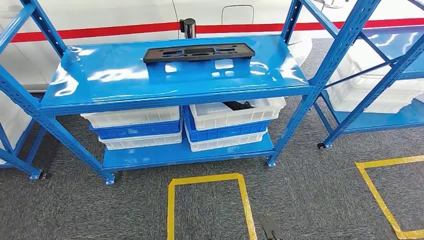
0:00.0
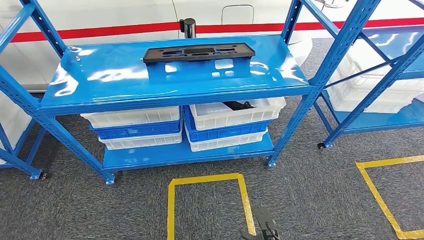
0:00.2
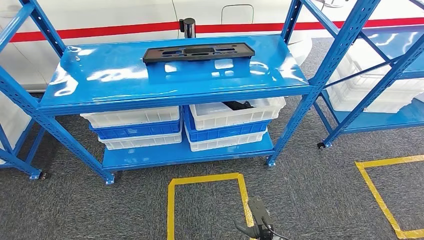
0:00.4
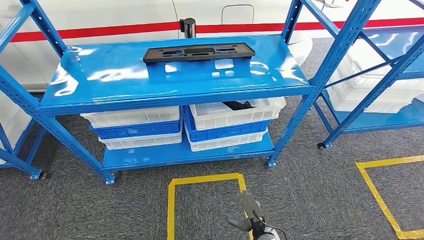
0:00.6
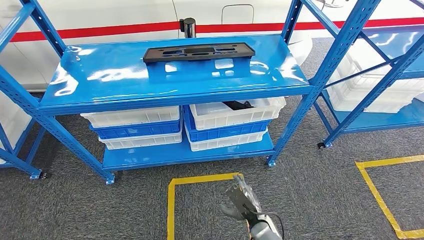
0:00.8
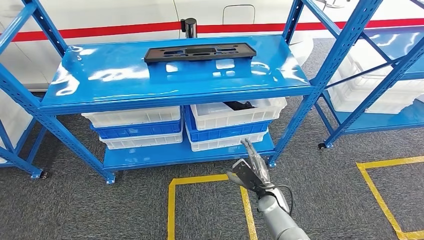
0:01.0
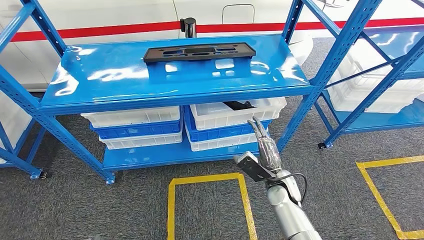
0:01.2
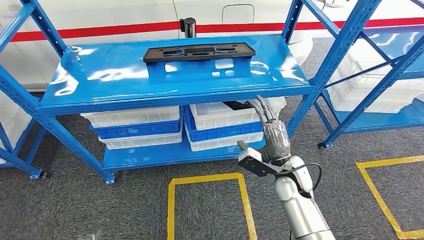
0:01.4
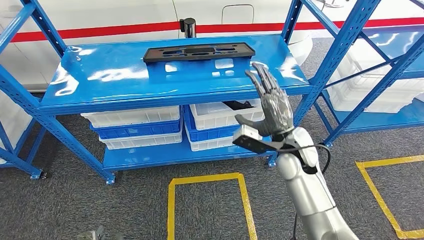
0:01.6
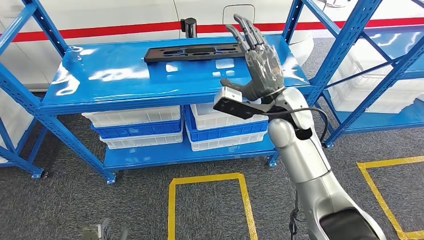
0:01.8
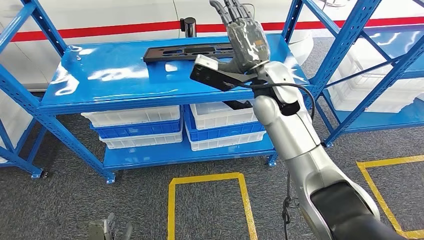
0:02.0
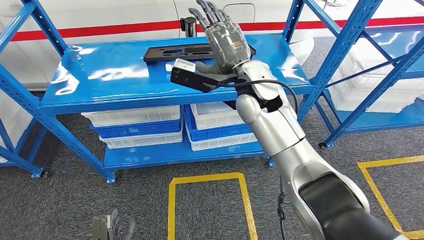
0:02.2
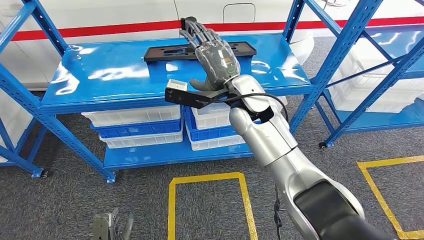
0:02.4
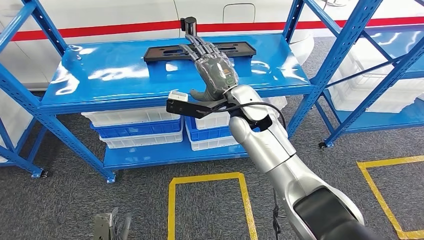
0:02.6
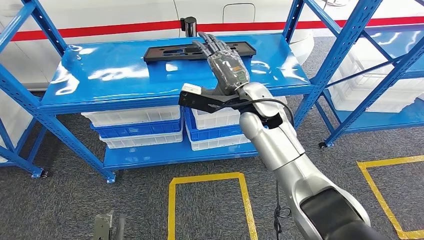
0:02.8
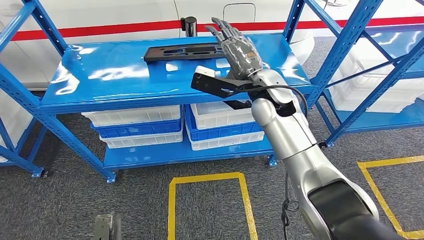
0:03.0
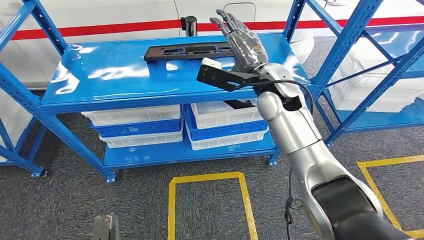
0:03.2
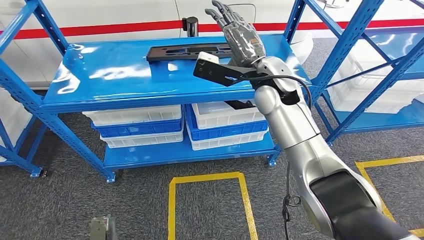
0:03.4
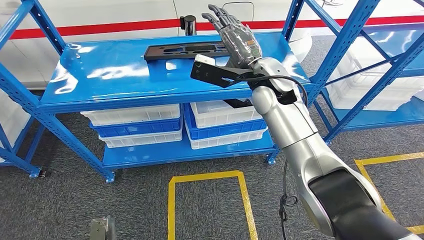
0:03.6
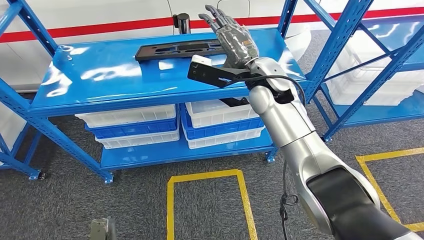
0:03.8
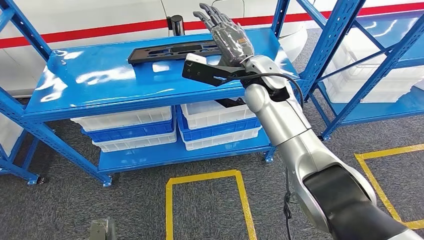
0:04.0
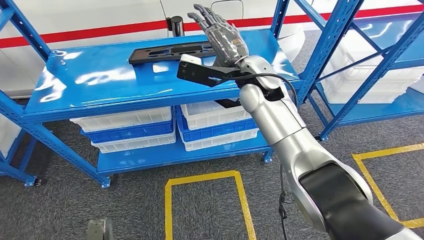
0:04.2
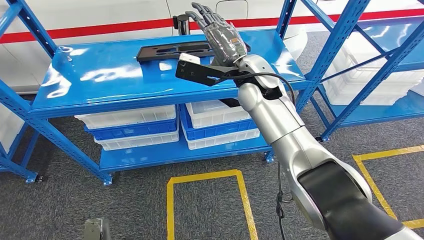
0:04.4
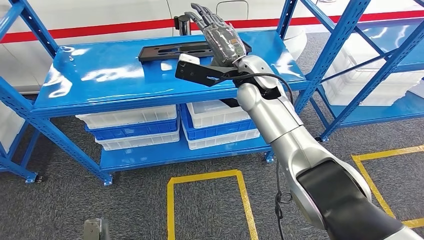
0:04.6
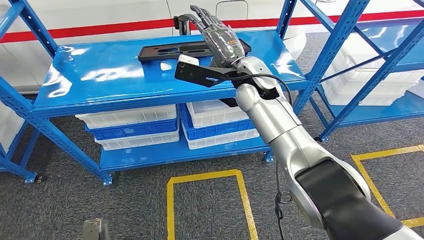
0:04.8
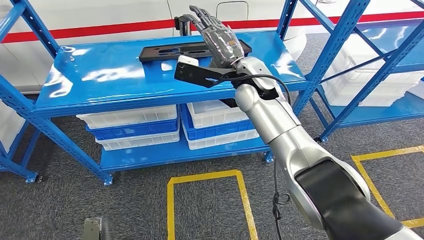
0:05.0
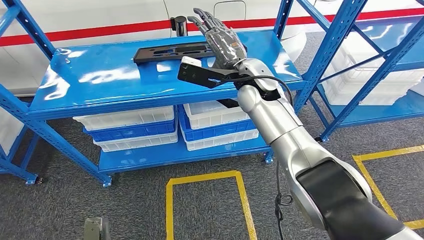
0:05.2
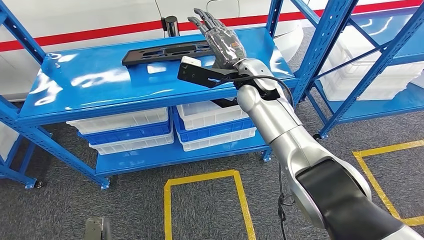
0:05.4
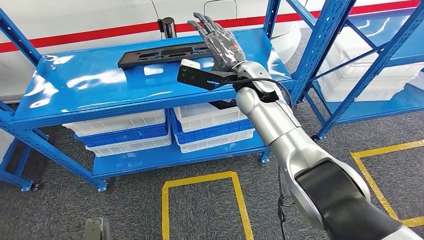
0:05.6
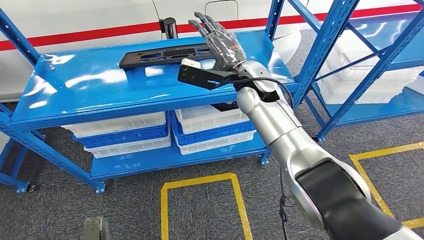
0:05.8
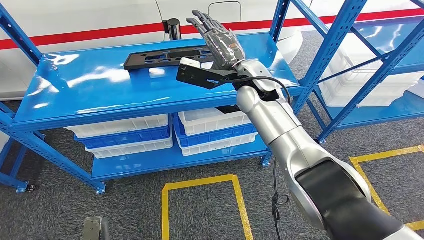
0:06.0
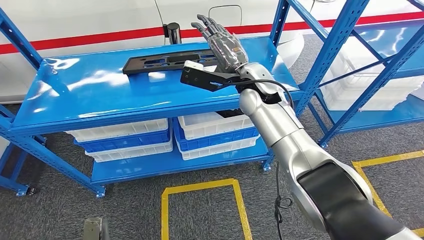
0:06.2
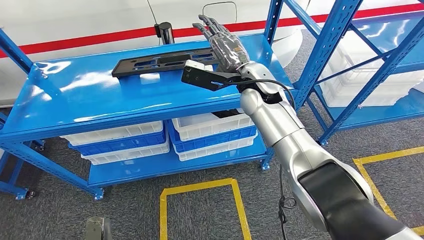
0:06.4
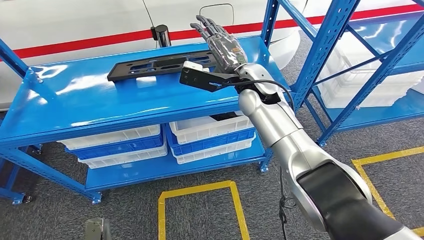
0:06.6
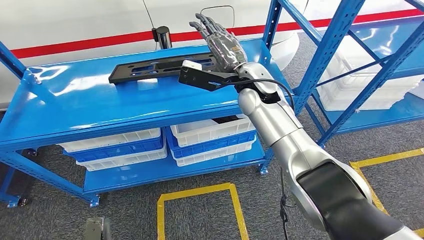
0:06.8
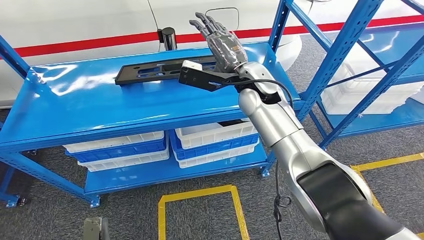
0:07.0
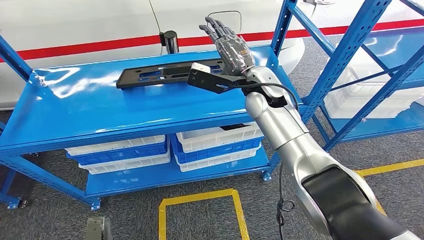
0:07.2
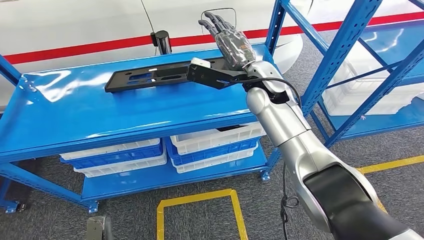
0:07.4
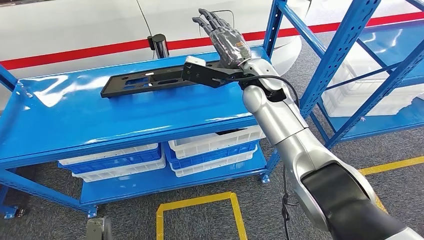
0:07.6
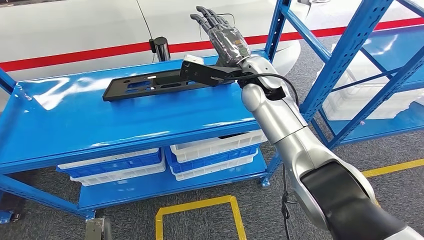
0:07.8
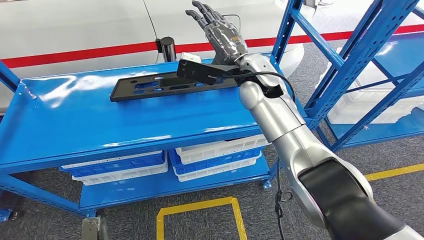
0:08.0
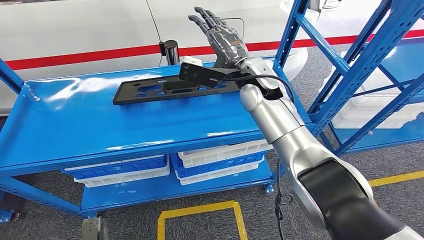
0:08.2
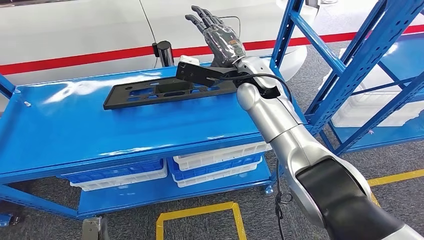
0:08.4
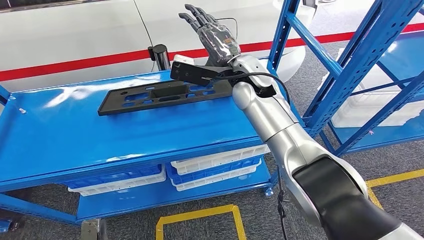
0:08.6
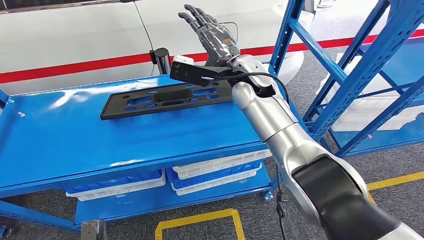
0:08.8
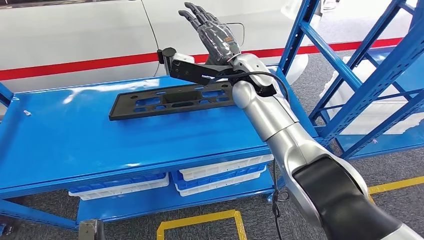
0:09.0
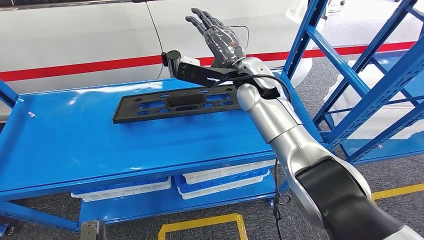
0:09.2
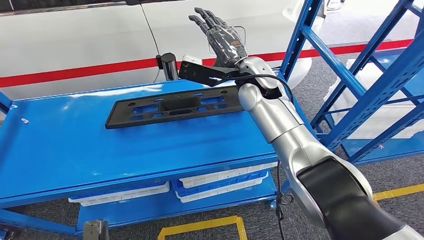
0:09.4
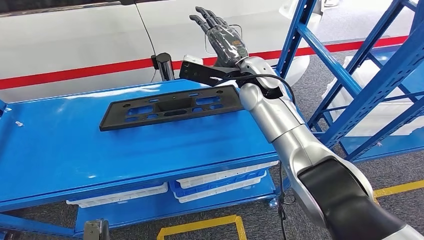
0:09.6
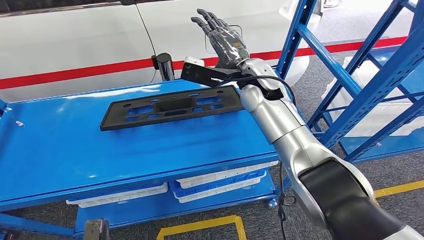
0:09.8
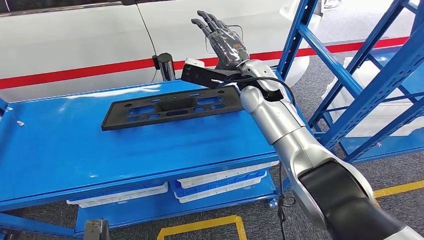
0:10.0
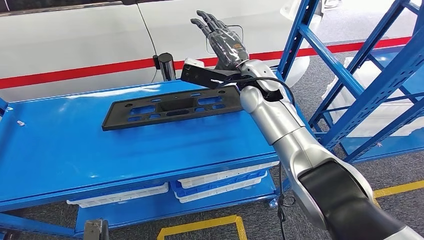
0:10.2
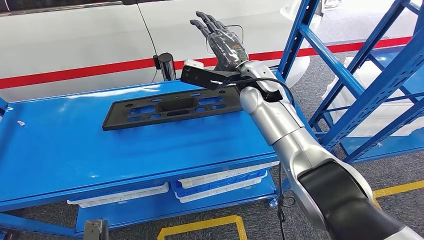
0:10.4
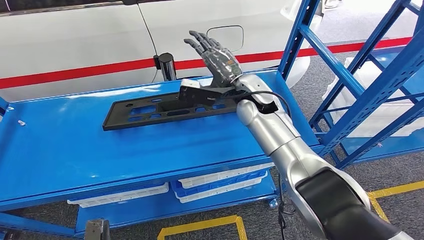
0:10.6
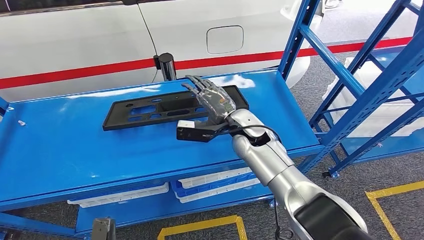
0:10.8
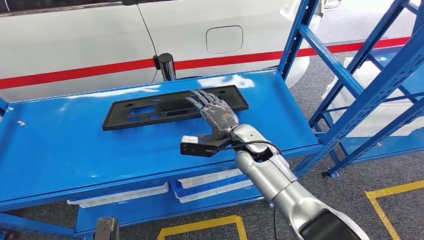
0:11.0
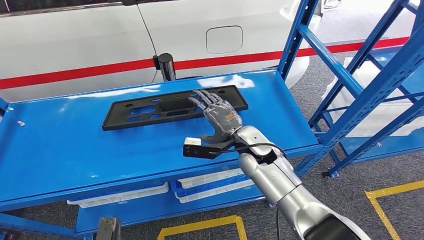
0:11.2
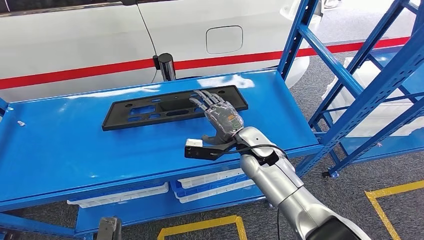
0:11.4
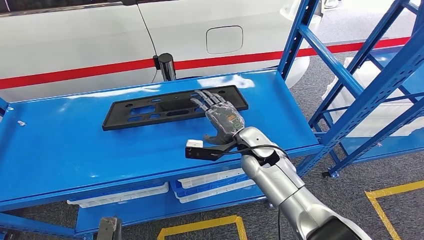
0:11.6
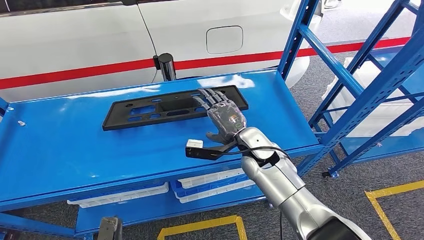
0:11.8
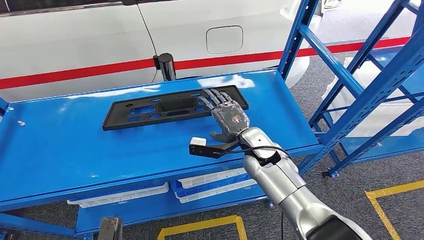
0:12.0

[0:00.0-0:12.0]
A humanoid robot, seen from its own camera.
0:10.4 to 0:12.0: The right hand moves downward and backward, approximately 15 cm.

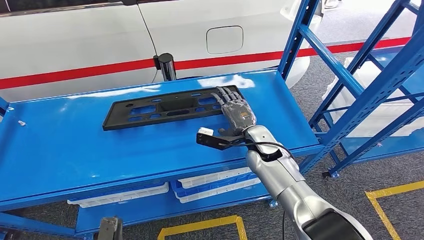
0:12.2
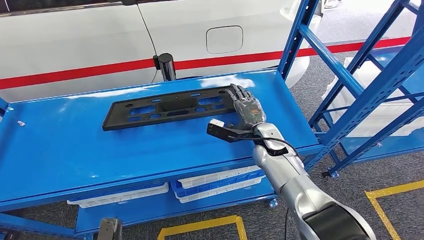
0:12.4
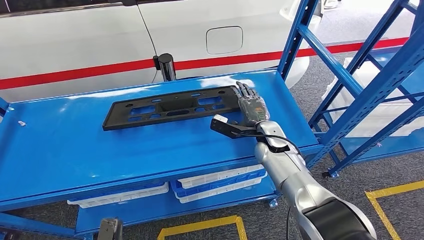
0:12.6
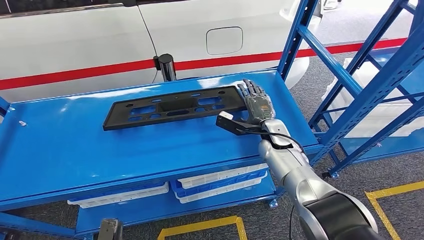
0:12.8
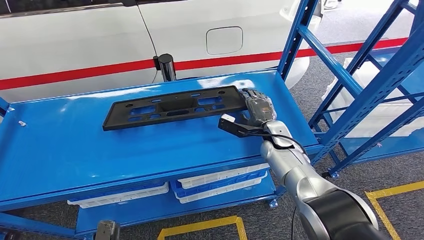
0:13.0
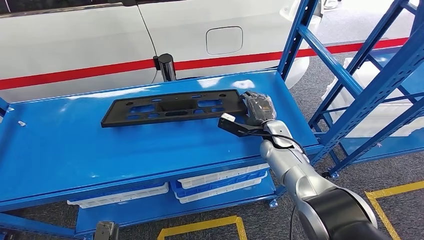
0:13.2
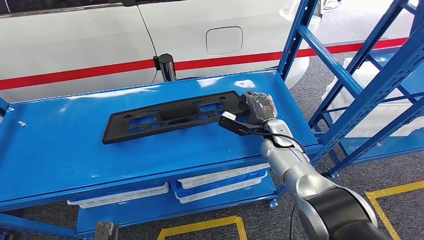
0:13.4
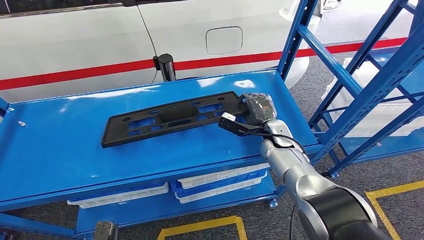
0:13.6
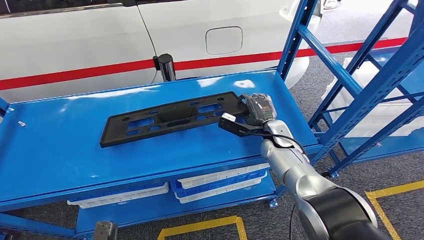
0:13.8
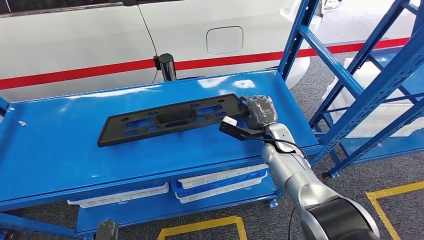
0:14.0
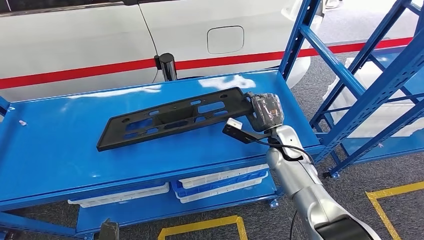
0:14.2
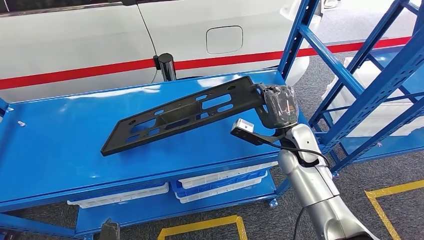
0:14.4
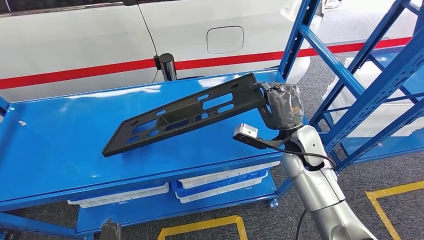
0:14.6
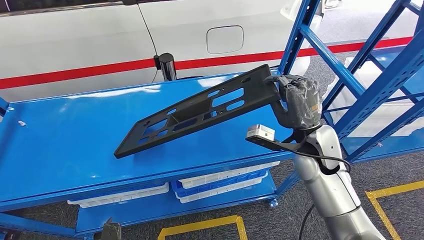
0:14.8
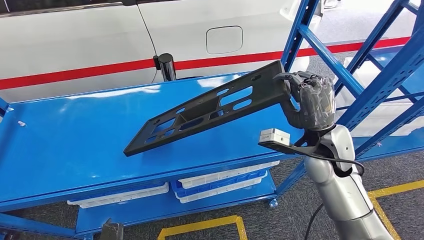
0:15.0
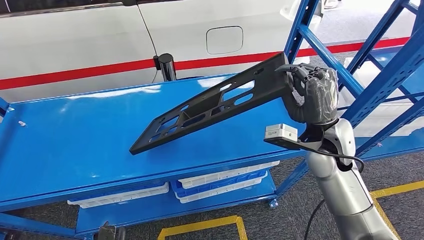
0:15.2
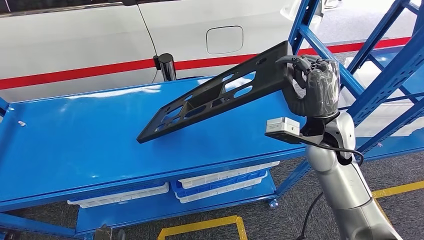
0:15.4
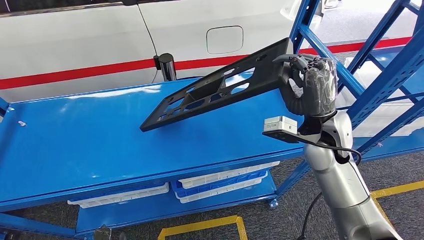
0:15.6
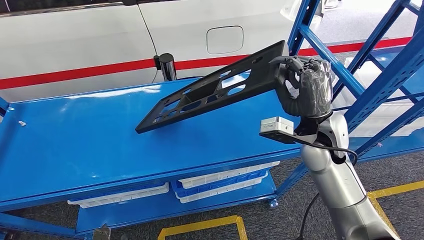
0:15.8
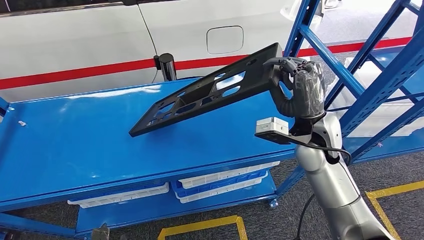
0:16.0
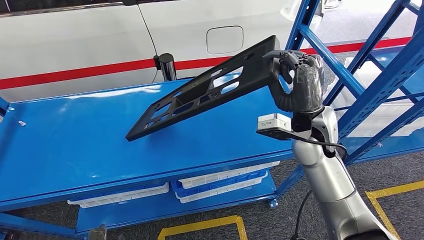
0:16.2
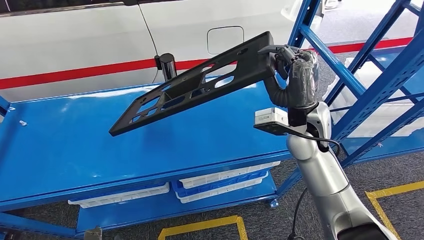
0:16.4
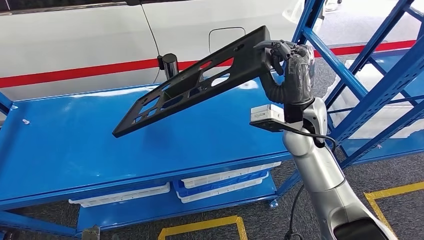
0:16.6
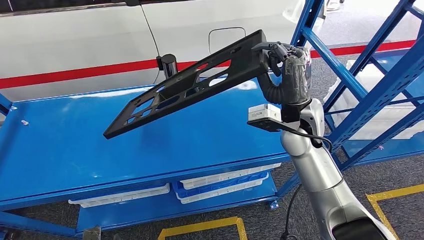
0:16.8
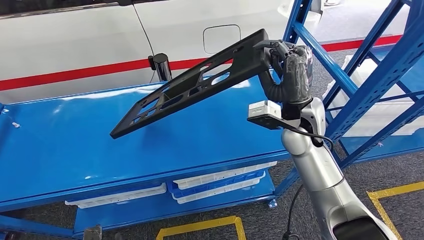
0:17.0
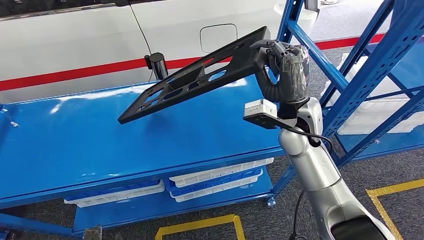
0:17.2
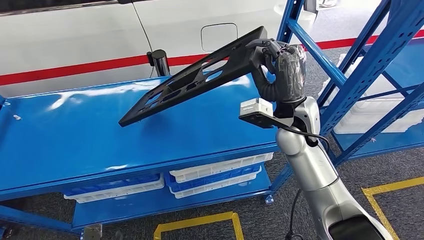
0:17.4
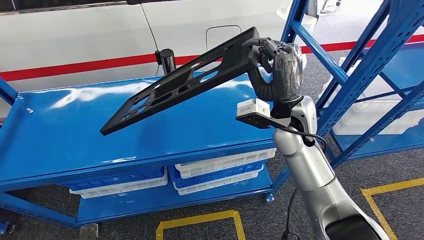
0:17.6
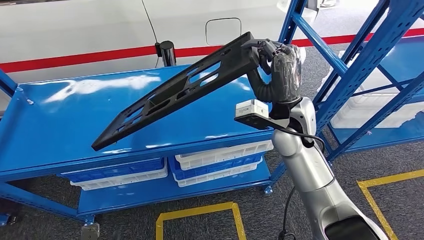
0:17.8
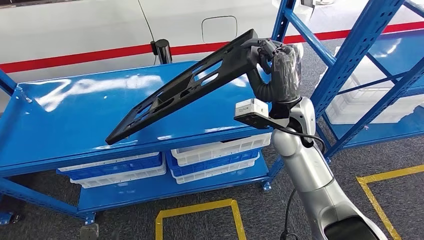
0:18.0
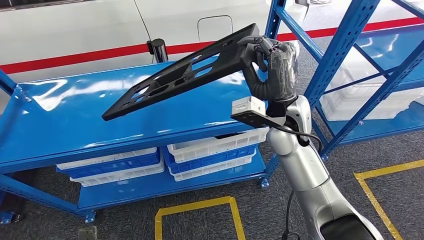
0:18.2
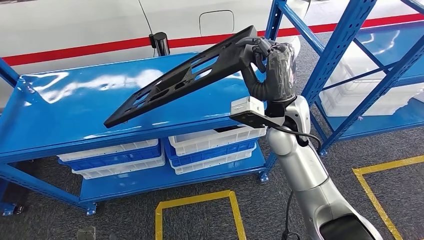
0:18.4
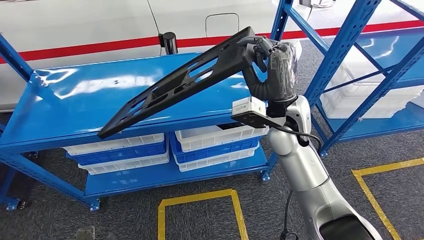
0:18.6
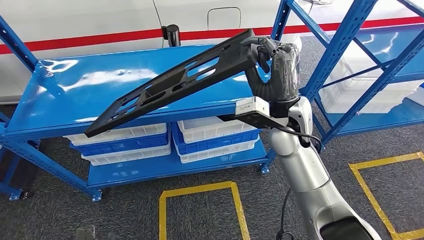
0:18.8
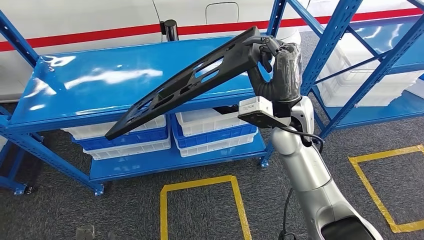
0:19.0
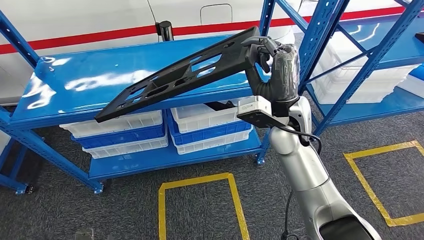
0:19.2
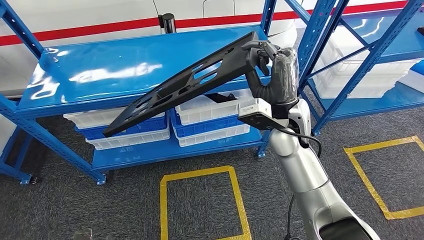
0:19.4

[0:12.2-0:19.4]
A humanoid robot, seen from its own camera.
Step, 0:12.2 to 0:16.0: Pick up the large material from the shelf.
0:12.2 to 0:13.6: The right hand travels to the right by some 5 cm.
